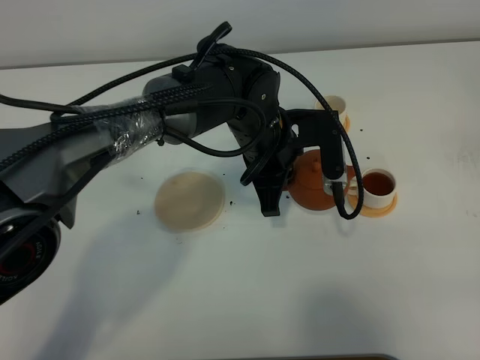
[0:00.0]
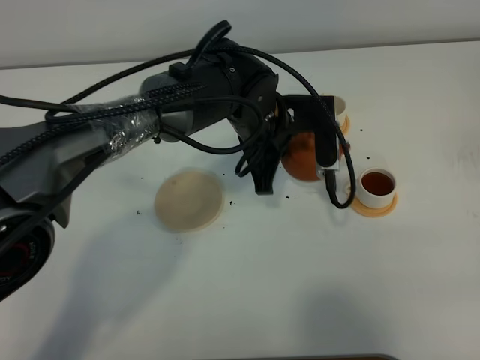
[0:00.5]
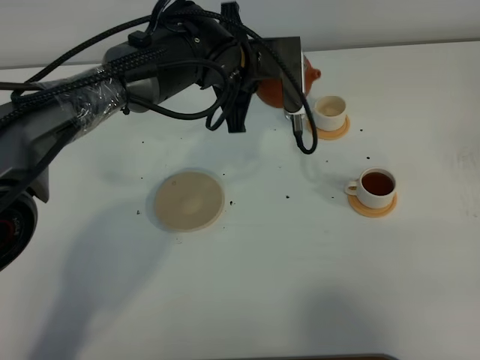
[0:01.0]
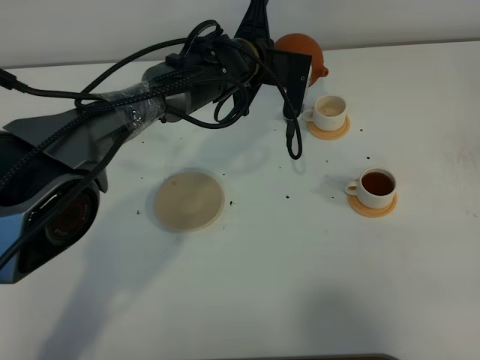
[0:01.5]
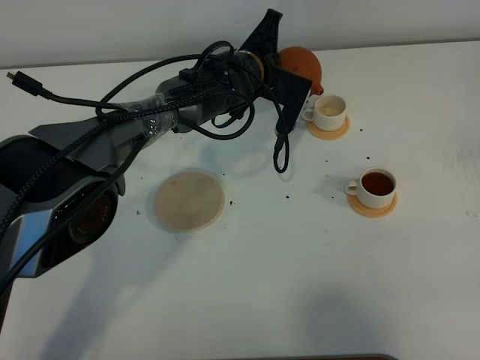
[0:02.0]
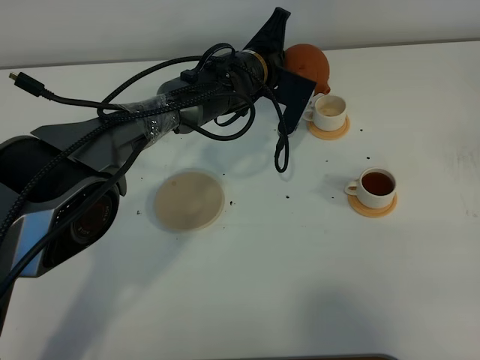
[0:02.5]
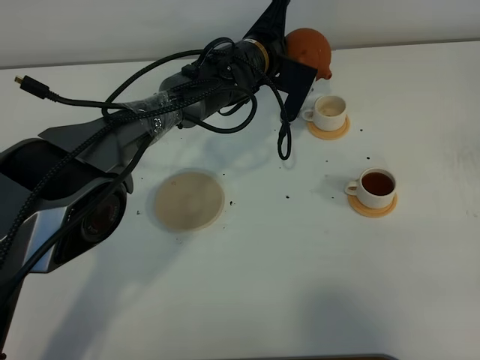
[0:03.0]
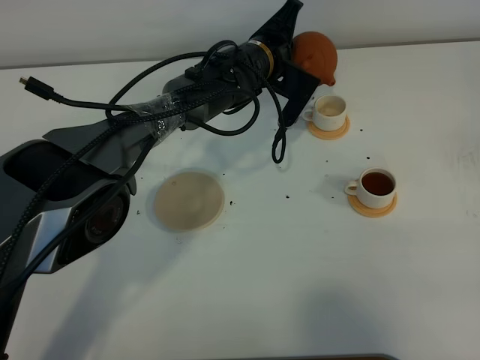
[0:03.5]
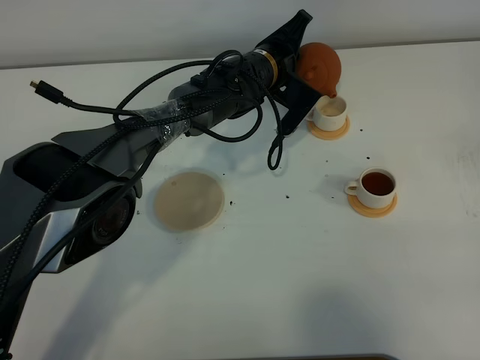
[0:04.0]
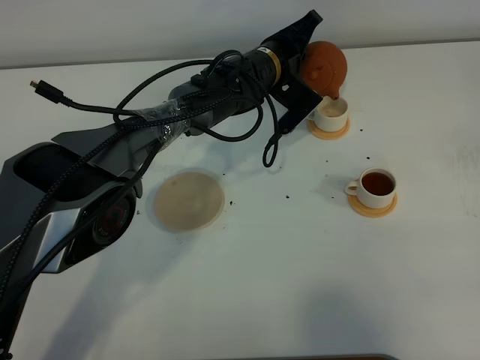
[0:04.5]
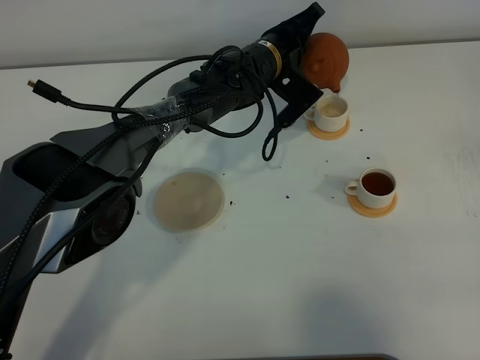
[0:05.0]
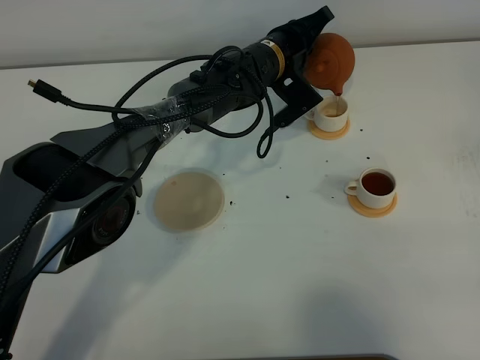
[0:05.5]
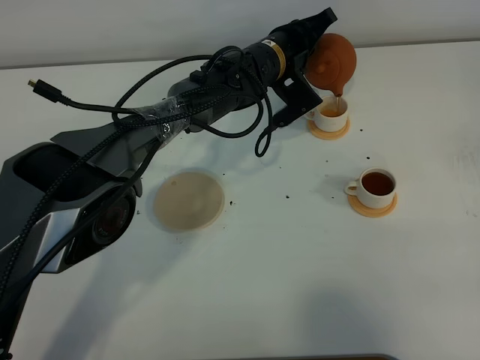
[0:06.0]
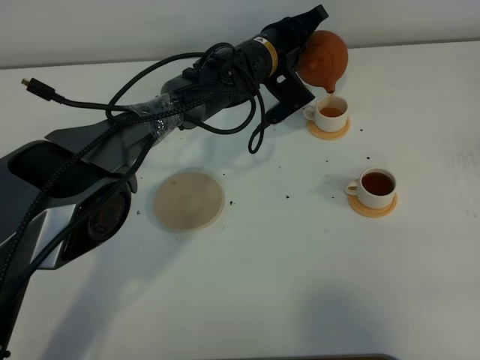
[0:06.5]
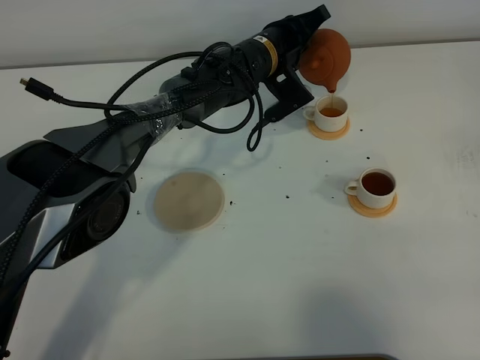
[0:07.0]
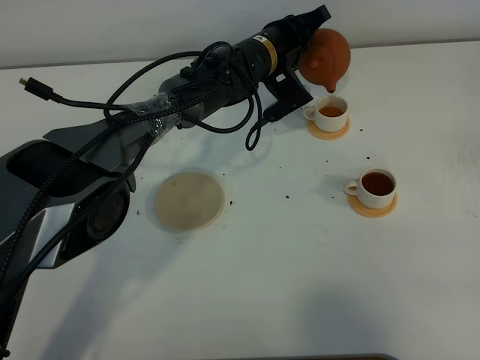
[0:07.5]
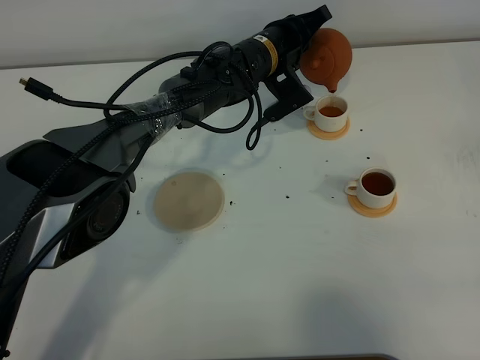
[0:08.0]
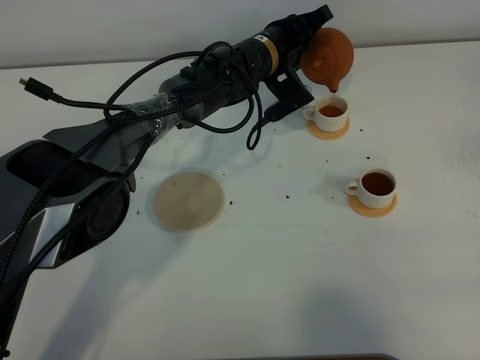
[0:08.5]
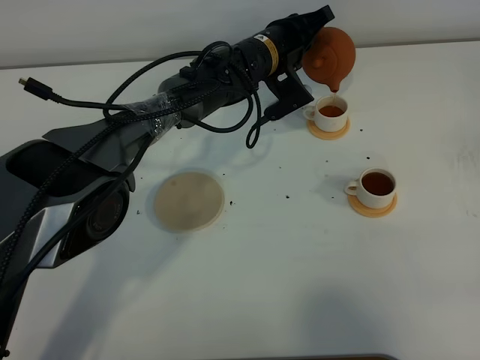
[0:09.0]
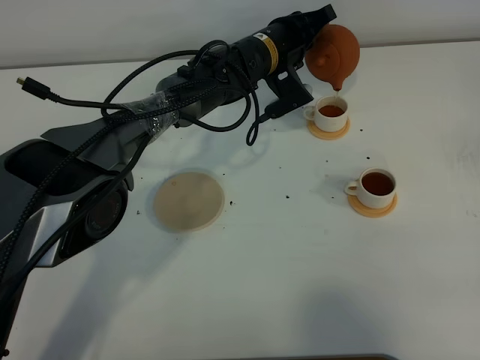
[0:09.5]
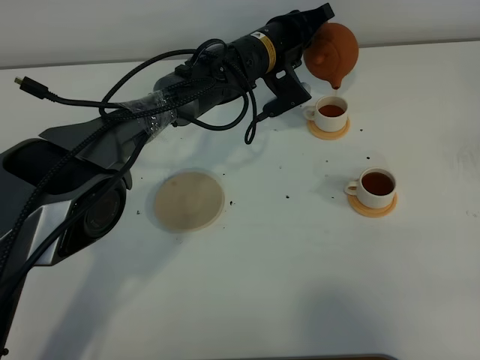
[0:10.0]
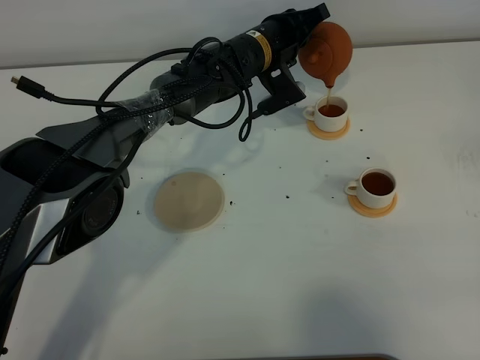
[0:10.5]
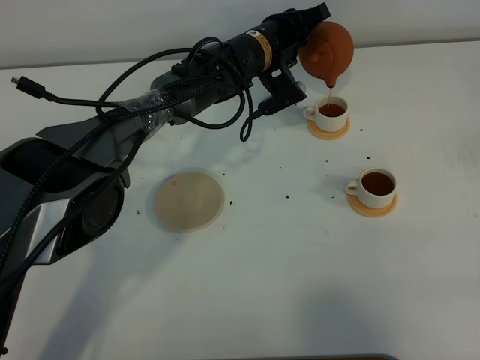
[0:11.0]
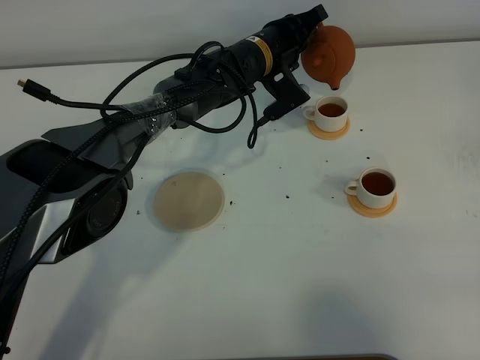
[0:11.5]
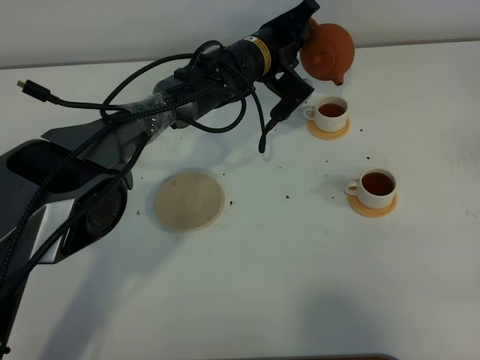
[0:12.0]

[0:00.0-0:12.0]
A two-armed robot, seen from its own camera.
Task of the whole recording: grasp the brown teapot and pour the tea into the two white teacups one by one, put the brown teapot back in its original place.
Step, 0:00.0 to 0:12.0: Pour tea into the teacup with the left gripper.
0:00.0 to 0:02.0: The left gripper moves forward, approximately 10 cm.
0:02.0 to 0:04.0: The grippers make only small movements.
0:04.0 to 0:06.0: The grippers stay close to where they were, moving slightly.
0:06.0 to 0:08.0: Neither gripper changes place.
0:08.0 to 0:12.0: There are only small adjustments of the grippers.

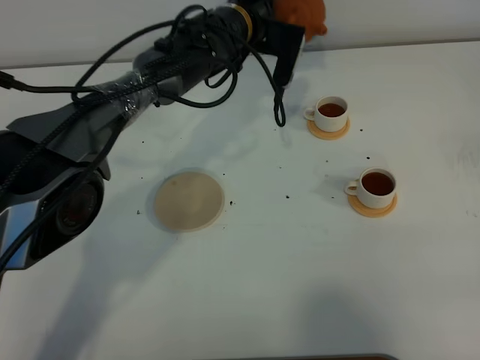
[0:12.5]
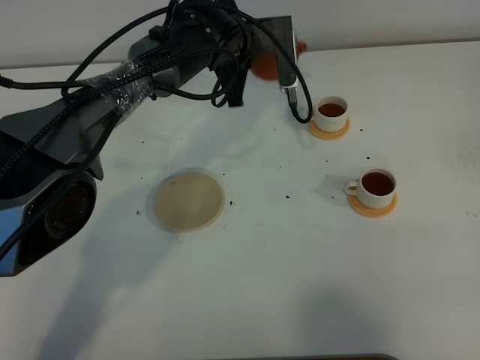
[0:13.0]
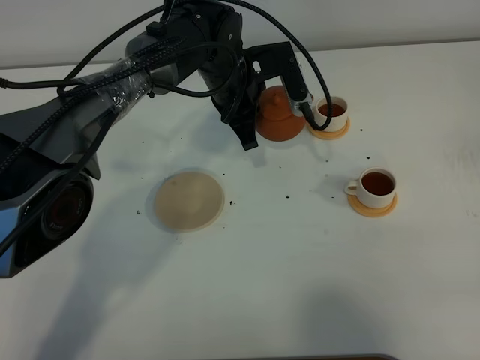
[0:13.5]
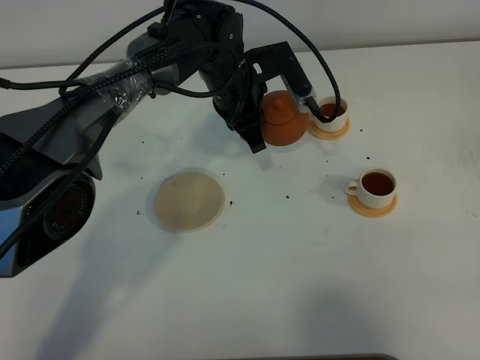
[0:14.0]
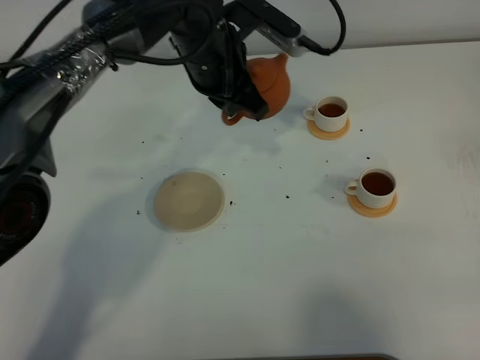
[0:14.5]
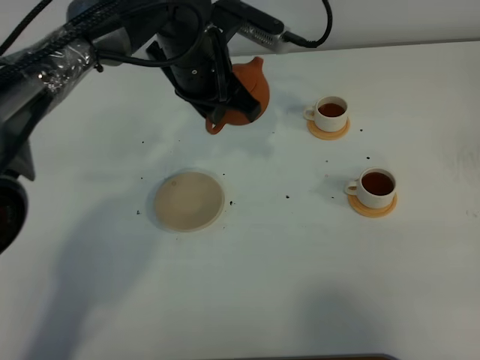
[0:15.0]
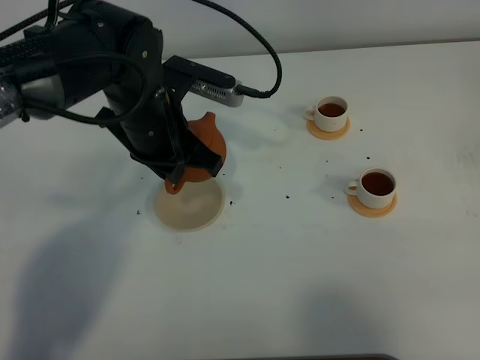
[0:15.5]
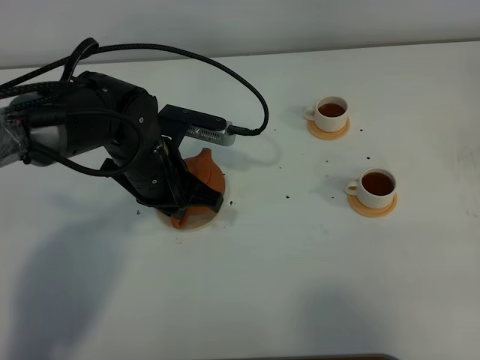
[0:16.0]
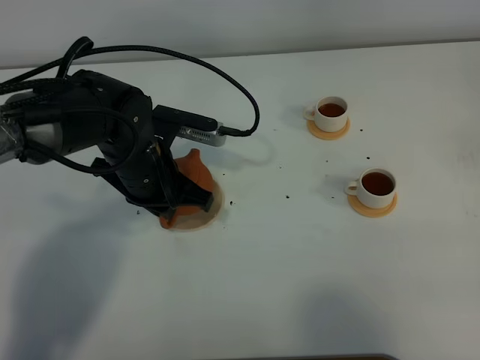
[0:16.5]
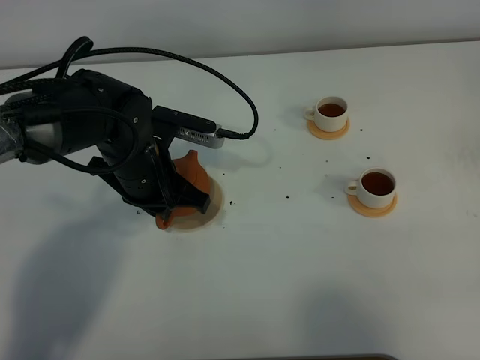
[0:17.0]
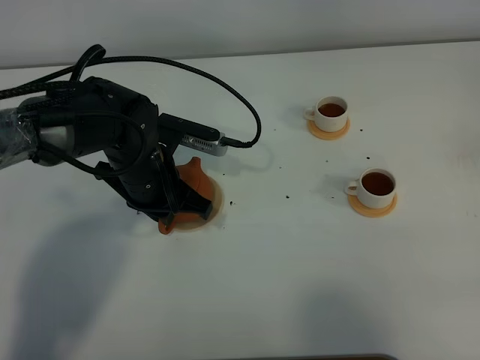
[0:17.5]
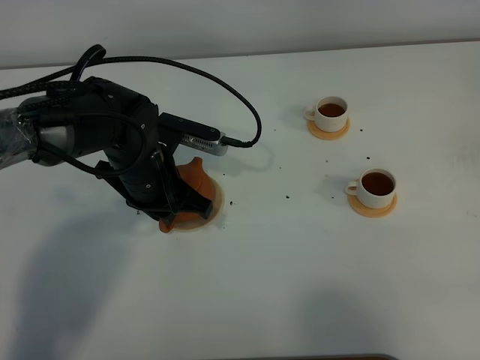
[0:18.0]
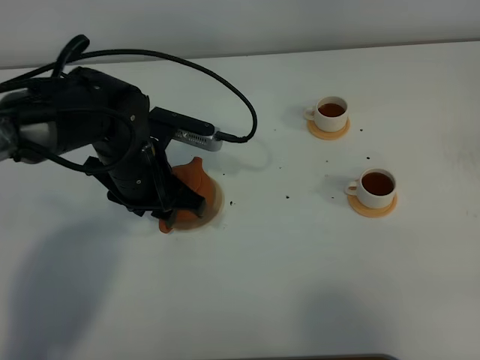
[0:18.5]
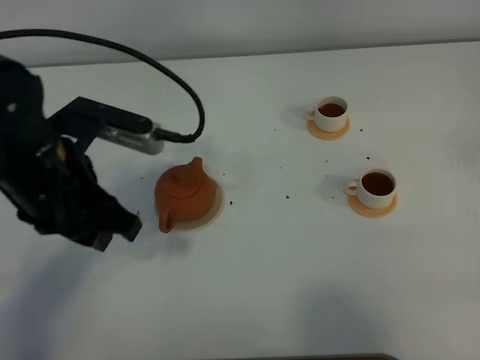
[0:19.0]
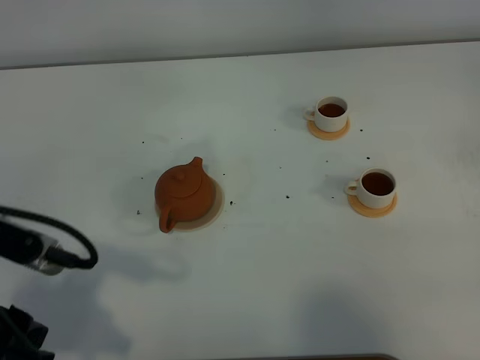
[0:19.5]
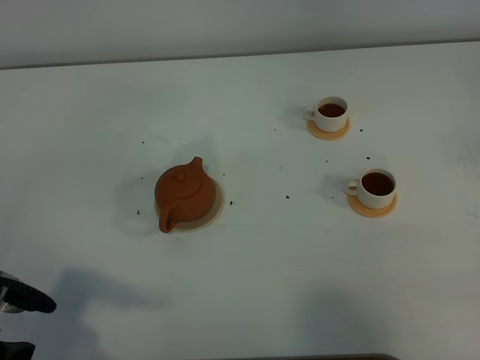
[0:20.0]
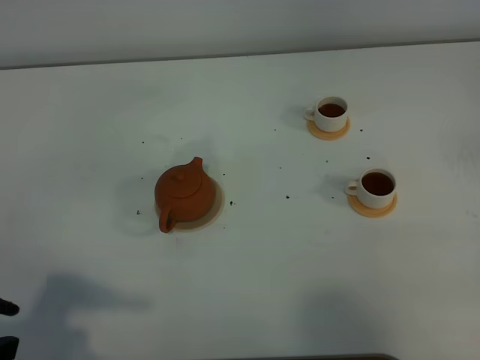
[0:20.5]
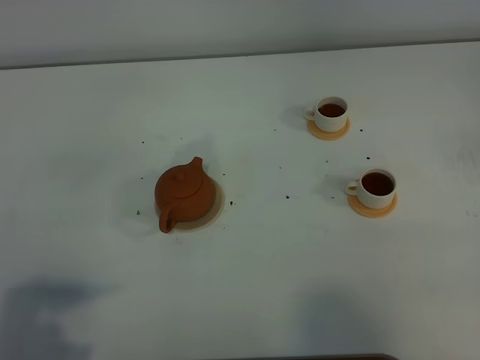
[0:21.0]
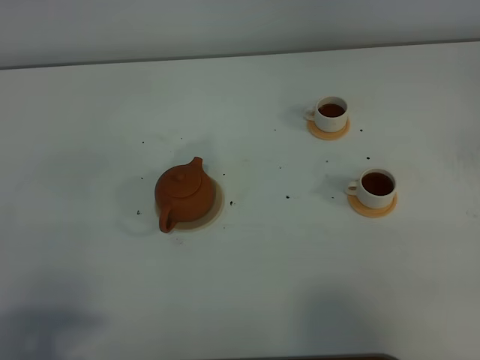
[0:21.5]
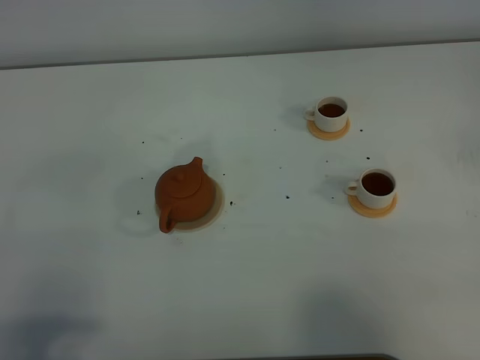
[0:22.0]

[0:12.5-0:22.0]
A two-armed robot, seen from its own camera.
Task of the whole recording: grasp the brown teapot and pour the tea into the two white teacups one by one, put the brown teapot back in its original place.
0:12.5 to 0:14.5: The left gripper shifts some 10 cm backward.
0:14.5 to 0:16.5: The left gripper heads backward, downward and to the left, covering roughly 15 cm.
0:16.5 to 0:18.0: There are only small adjustments of the grippers.
0:18.0 to 0:20.0: The left gripper shifts roughly 30 cm backward, to the left and upward, and opens its fingers.
0:20.0 to 0:22.0: The left gripper shifts about 5 cm backward.

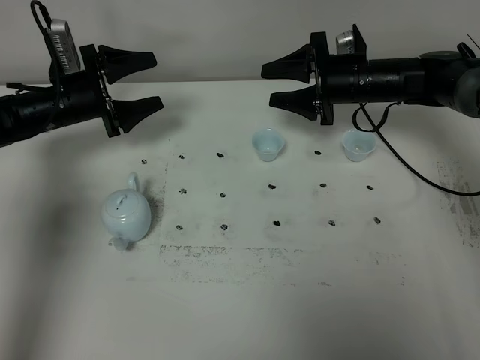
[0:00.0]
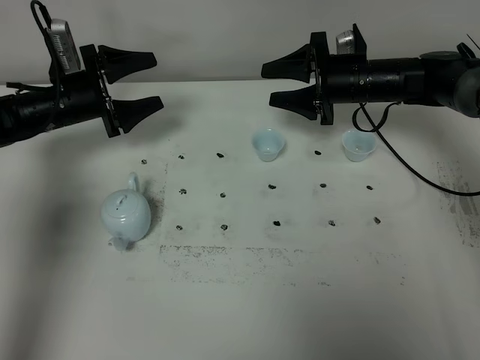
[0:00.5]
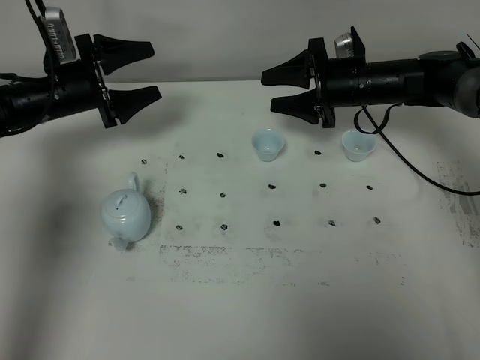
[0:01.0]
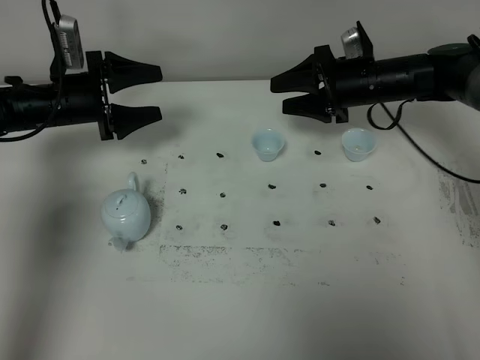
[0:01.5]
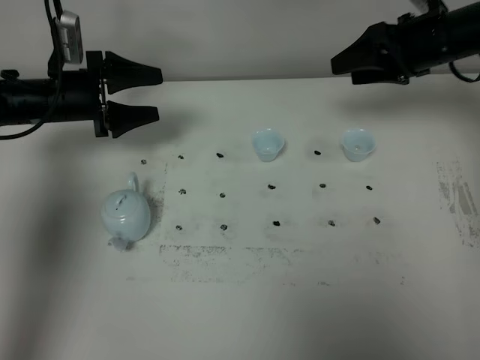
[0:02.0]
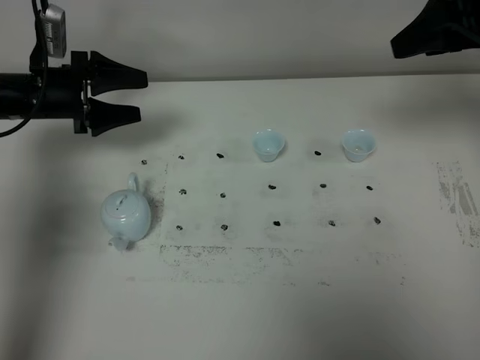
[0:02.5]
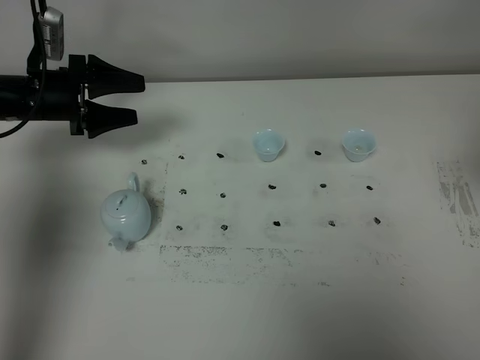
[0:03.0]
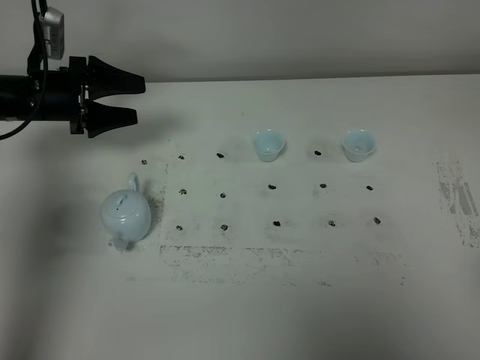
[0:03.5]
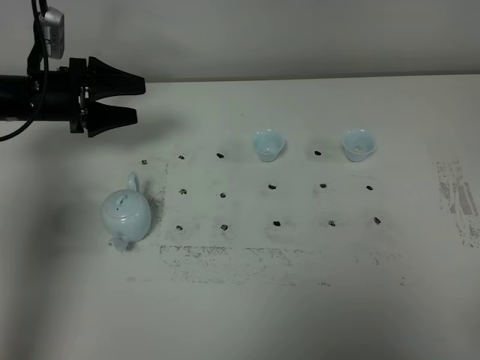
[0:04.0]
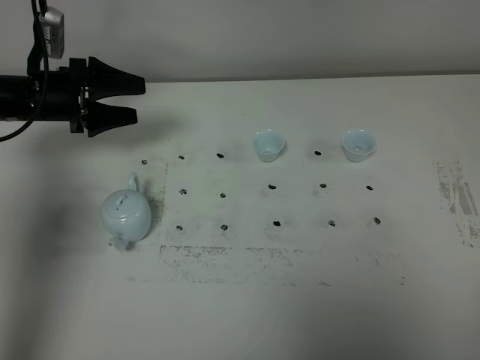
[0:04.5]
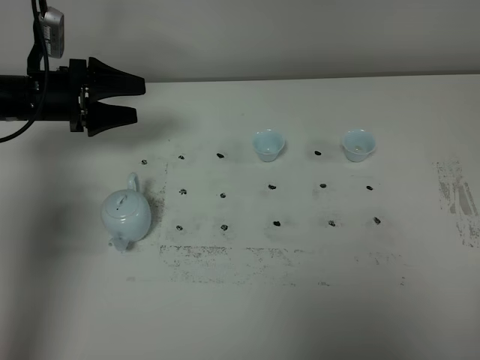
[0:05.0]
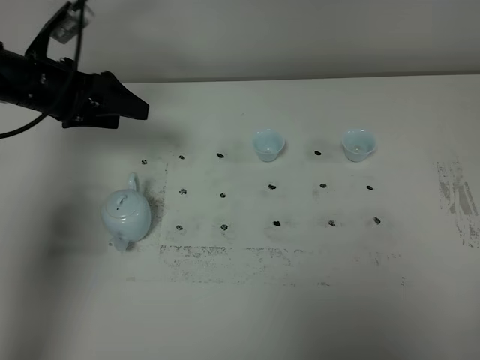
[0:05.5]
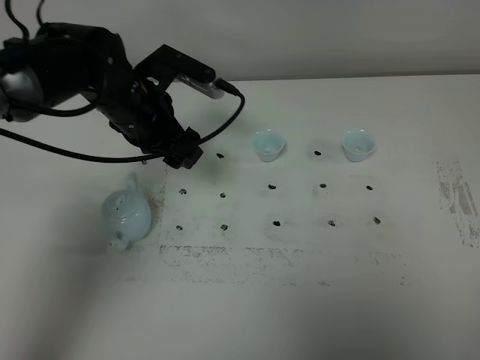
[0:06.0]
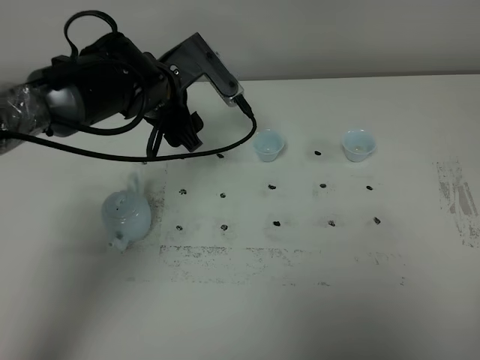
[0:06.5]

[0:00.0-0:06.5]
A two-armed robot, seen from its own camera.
Task of the whole recording: grasp the blue porcelain teapot and pour the tea into the two blue porcelain teacups one by one, put the blue porcelain teapot back in its original place.
0:00.0 to 0:02.0: The right gripper heads upward and to the right, covering approximately 10 cm.
0:02.0 to 0:04.5: The right gripper travels backward by about 50 cm.
0:04.5 to 0:06.5: The left gripper shifts approximately 20 cm to the right.
